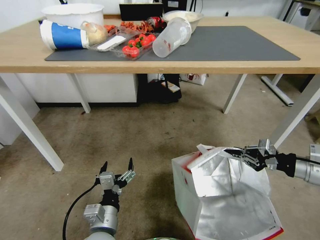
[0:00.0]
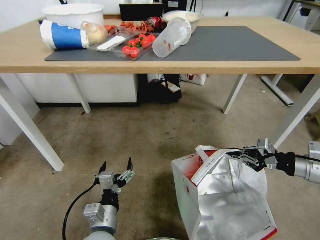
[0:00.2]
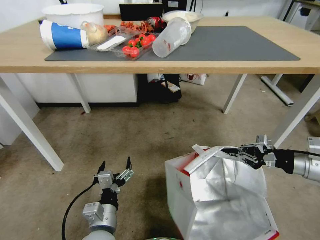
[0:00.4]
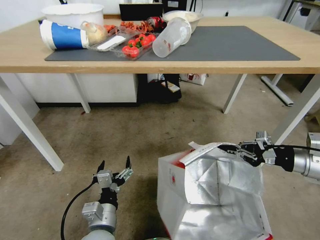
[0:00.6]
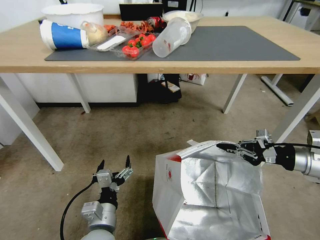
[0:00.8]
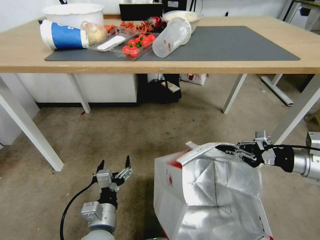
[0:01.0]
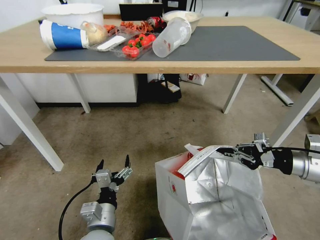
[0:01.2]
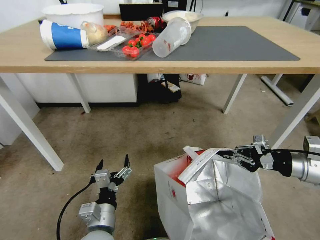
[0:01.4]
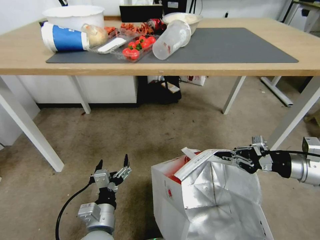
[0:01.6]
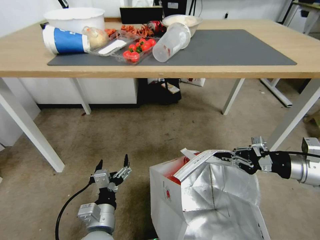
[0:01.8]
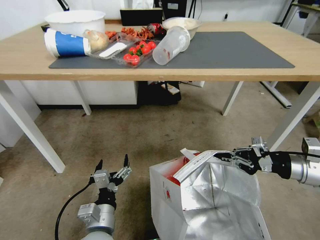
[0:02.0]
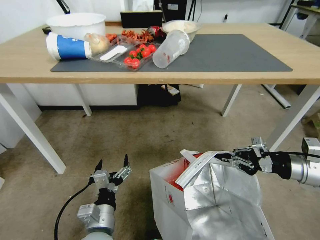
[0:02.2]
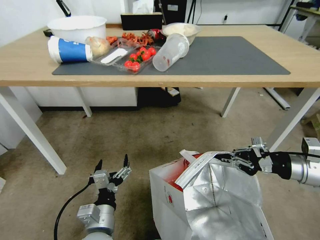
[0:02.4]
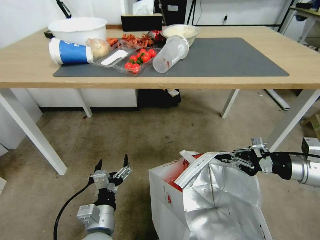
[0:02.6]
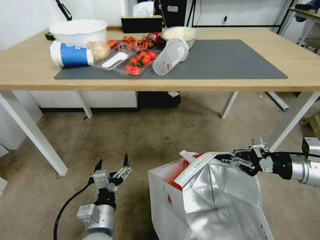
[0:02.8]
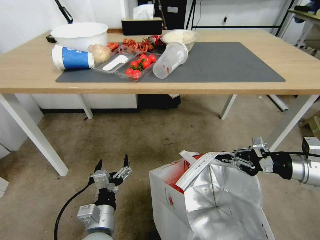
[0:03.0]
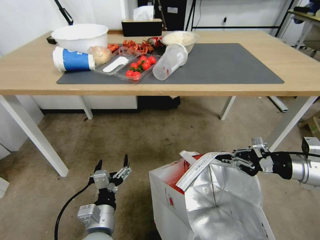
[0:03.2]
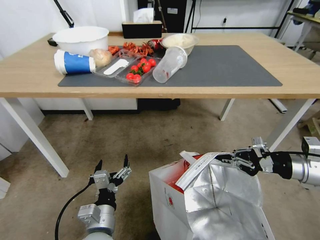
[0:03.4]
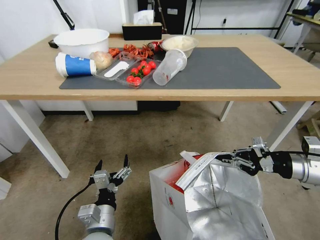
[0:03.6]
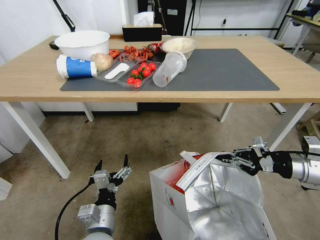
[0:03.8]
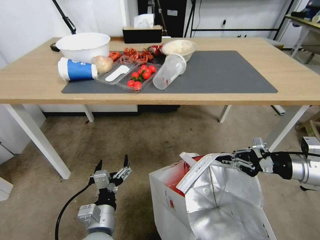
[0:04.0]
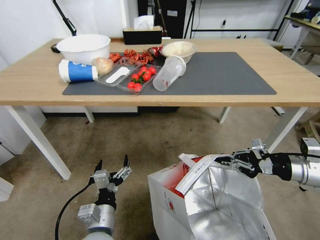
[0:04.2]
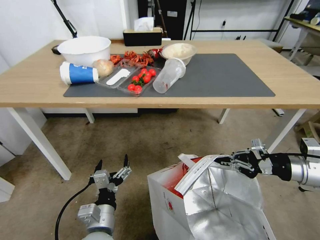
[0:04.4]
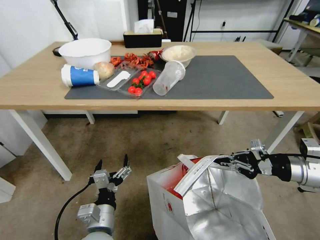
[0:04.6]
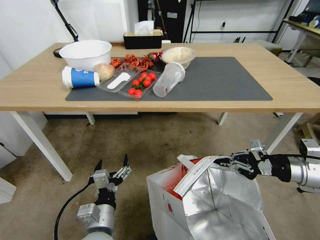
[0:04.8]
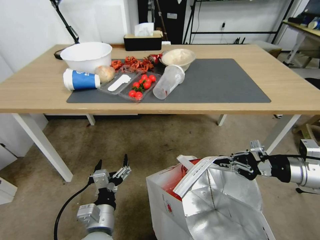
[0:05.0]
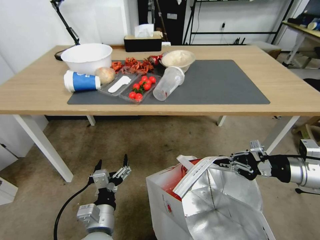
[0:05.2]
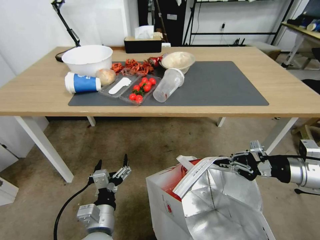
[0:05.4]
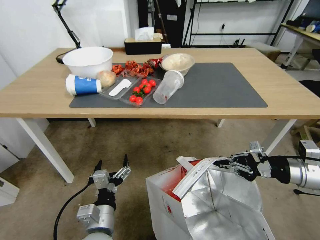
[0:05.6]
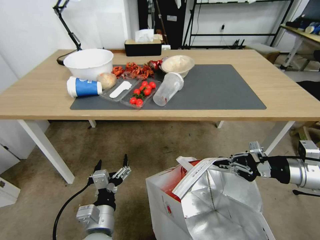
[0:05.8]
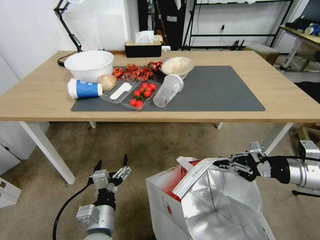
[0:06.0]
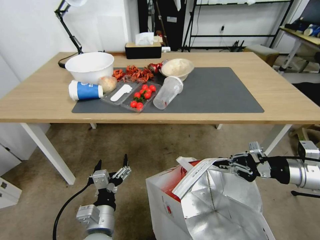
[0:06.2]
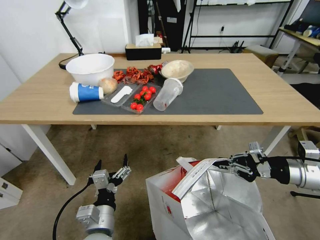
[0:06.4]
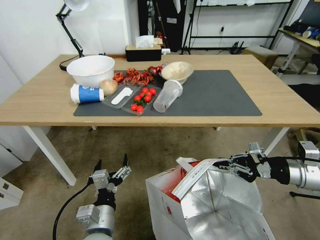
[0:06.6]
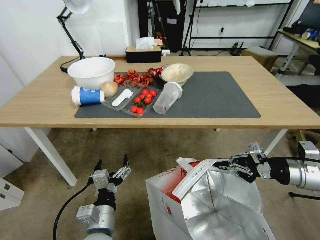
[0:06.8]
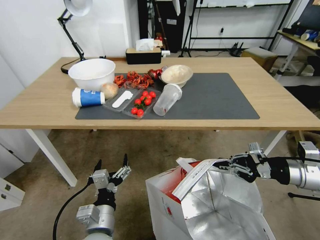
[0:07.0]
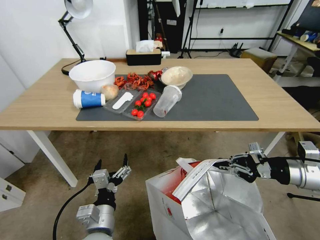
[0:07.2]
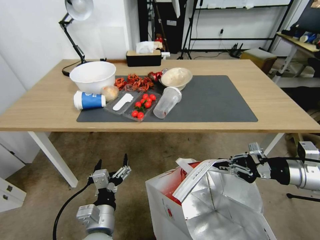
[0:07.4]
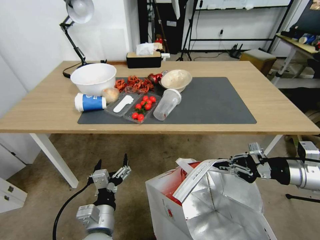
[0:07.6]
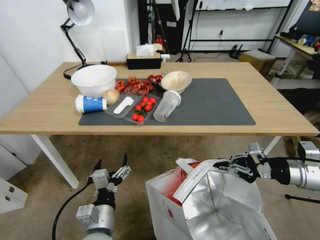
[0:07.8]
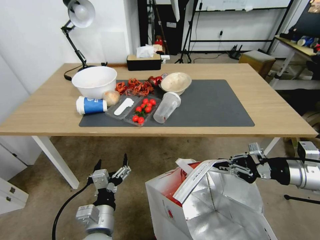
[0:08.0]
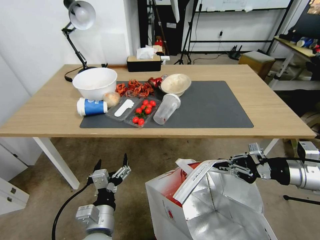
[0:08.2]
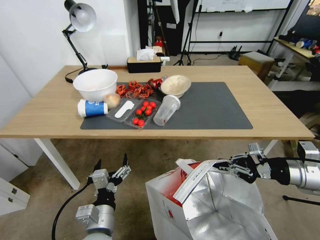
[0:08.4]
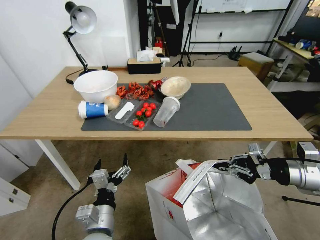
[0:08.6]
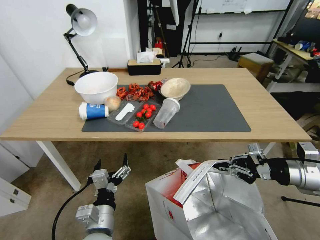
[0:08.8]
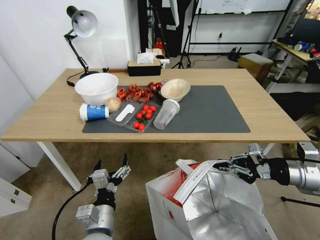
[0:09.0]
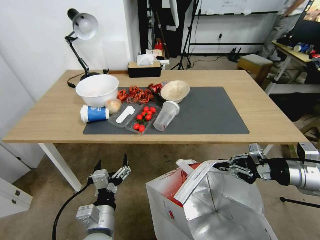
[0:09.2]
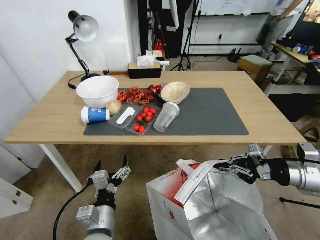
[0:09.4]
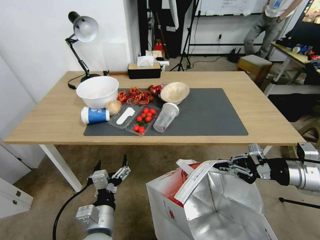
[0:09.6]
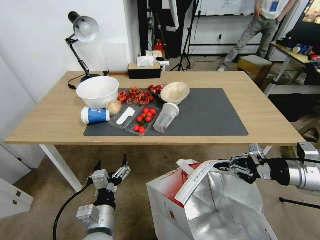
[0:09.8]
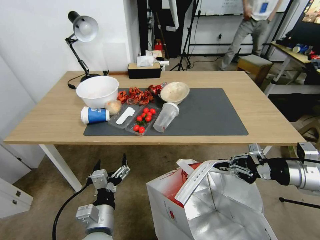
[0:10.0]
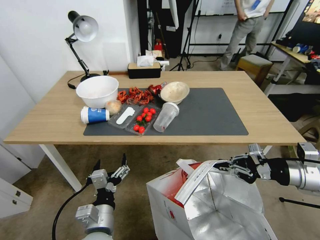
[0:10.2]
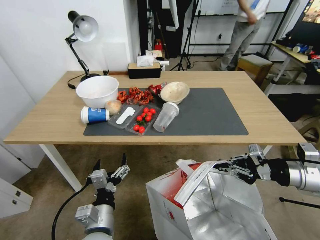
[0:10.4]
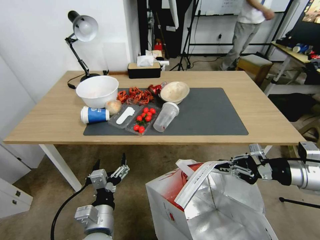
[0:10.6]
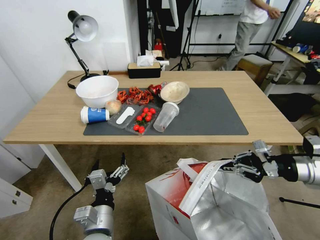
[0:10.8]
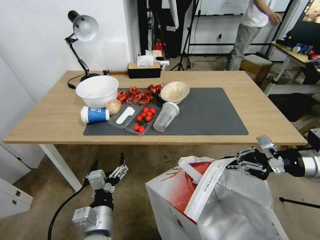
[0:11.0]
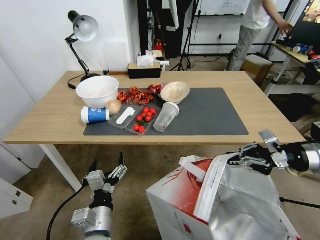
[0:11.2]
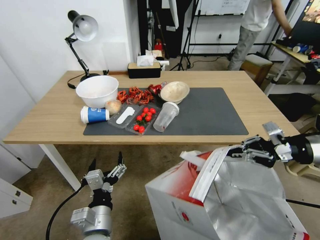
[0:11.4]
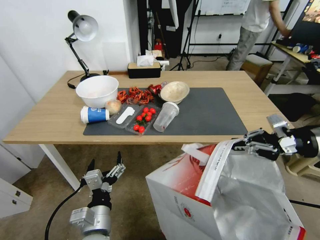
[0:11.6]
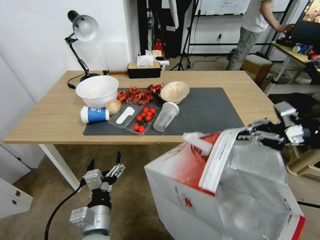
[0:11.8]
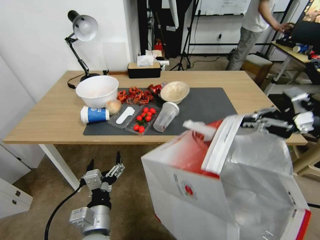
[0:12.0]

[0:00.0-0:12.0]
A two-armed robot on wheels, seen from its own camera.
Task of the whole recording: Pick up the food delivery bag from the floor and place it on the table.
0:10.4 to 0:12.0: The right gripper shifts roughly 15 cm upward and forward.

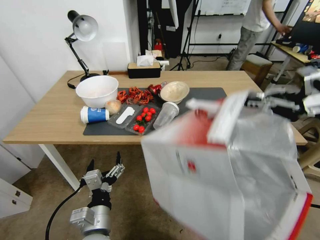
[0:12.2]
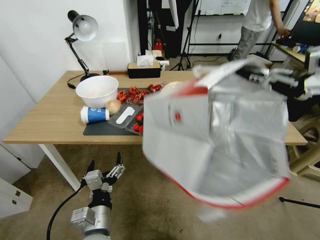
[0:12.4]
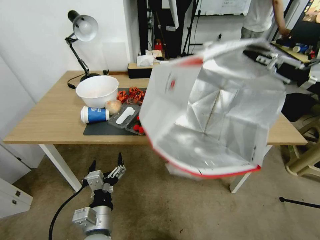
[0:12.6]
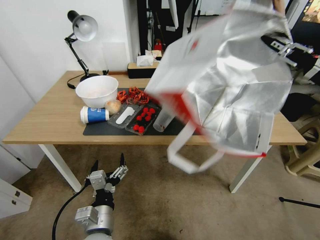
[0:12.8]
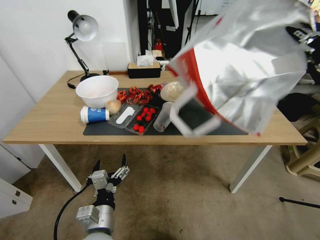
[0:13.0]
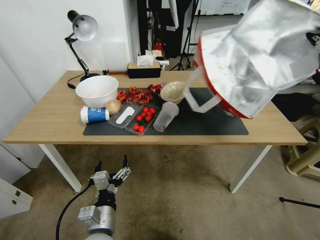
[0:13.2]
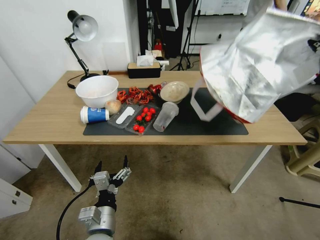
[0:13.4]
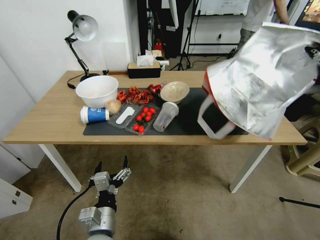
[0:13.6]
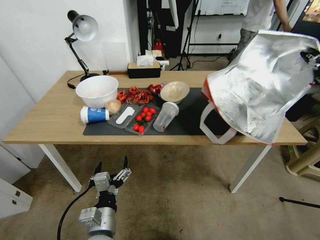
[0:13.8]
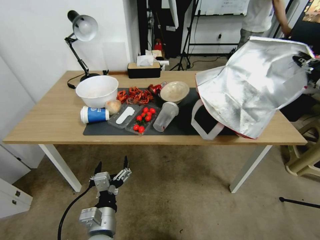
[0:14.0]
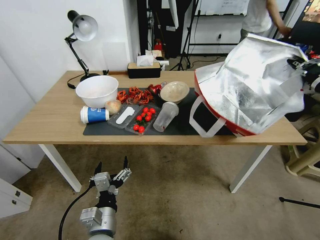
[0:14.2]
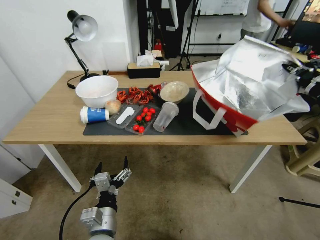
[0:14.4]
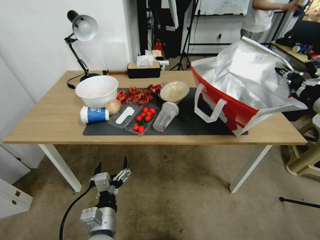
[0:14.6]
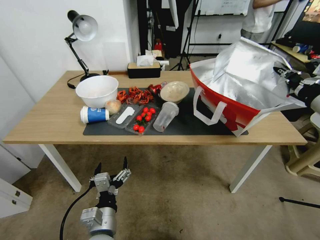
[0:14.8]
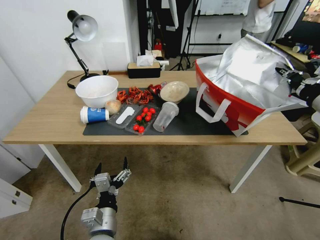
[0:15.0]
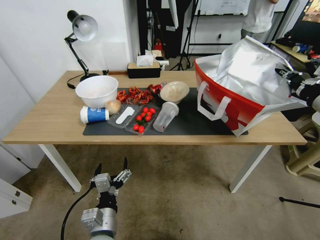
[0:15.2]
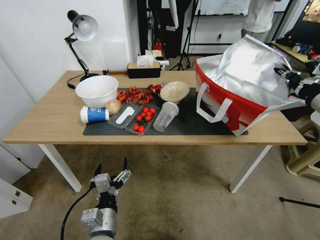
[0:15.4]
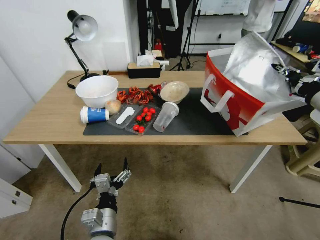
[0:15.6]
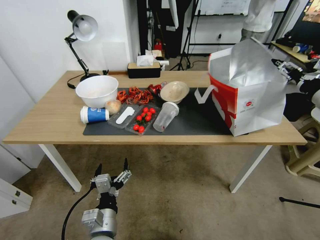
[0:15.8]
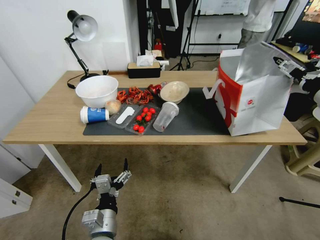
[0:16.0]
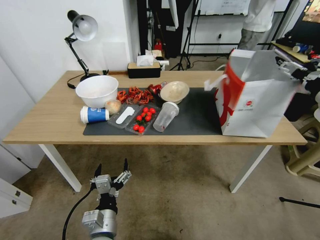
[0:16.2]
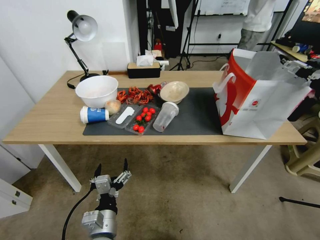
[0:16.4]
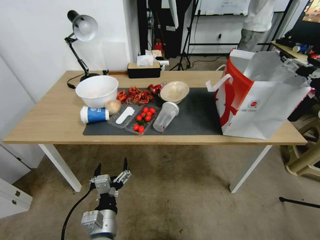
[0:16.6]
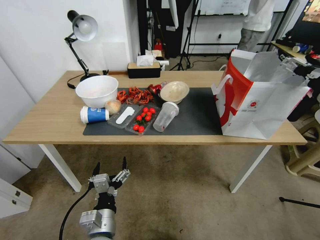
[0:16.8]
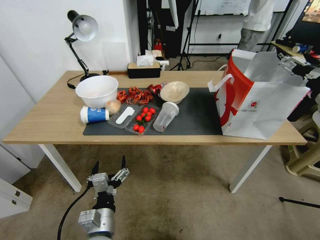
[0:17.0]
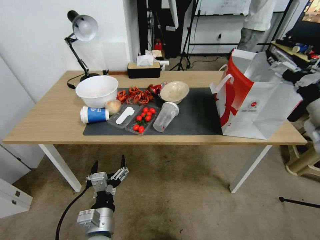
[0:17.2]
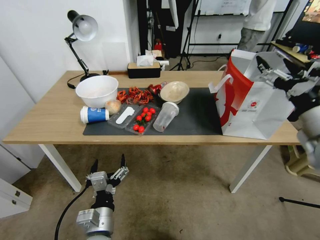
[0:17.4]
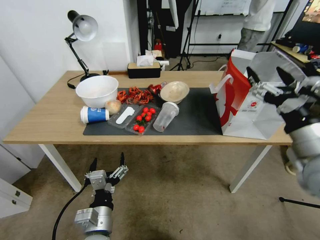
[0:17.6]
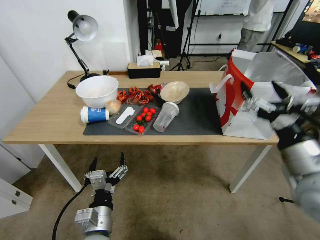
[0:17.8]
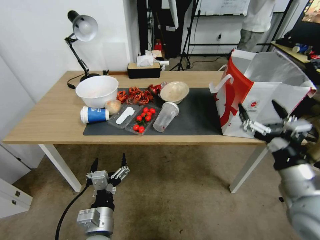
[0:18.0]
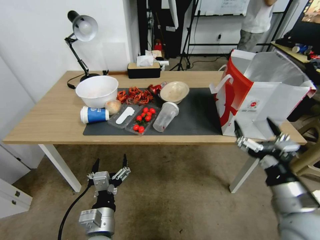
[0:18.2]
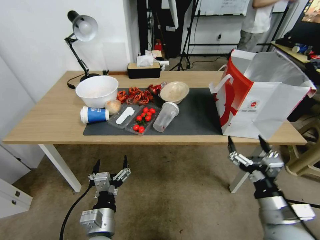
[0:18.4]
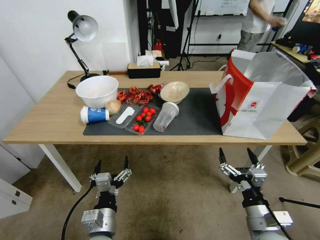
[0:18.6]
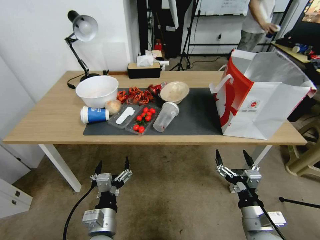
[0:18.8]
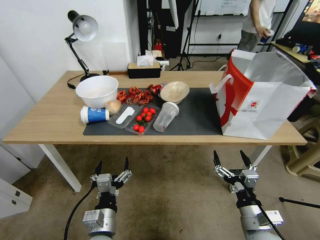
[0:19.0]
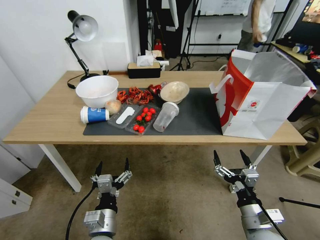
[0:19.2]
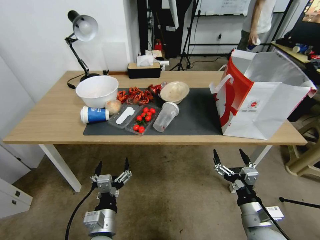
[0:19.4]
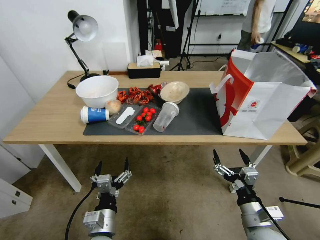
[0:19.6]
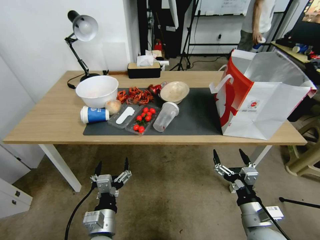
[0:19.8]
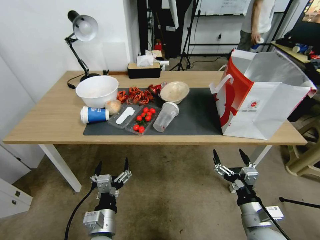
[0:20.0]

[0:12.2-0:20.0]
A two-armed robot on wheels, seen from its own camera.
Task of the whole recording: Pick up the food delivery bag from the floor and place it on the table.
0:13.8 to 0:15.4: The right gripper shifts by roughly 5 cm.
0:15.4 to 0:16.8: The right gripper opens its fingers.
0:16.8 to 0:18.4: The right gripper shifts roughly 30 cm downward, backward and to the left.
0:18.4 to 0:20.0: The right gripper travels downward by about 5 cm.

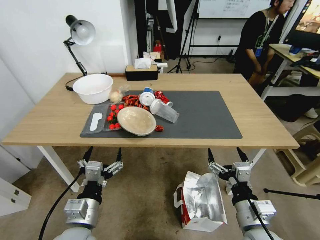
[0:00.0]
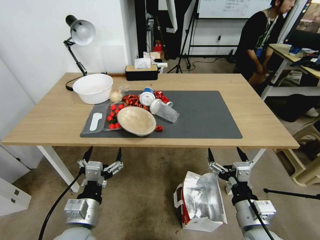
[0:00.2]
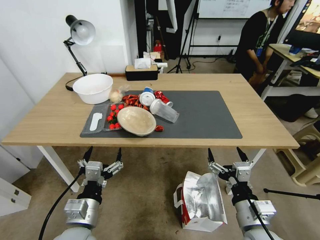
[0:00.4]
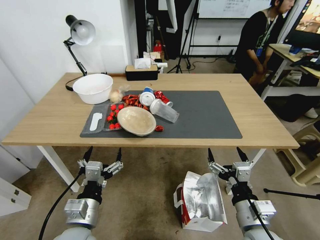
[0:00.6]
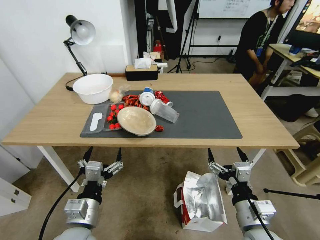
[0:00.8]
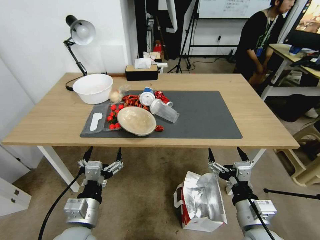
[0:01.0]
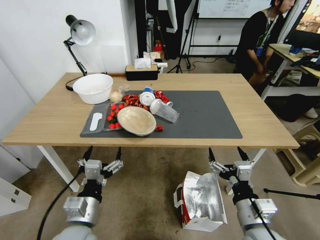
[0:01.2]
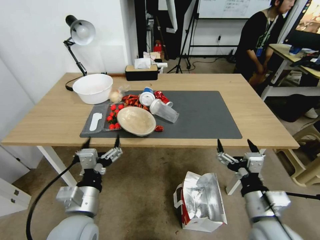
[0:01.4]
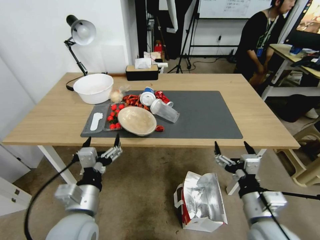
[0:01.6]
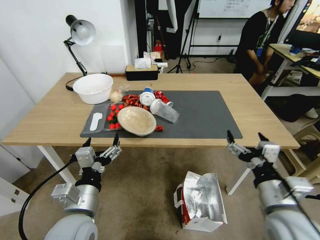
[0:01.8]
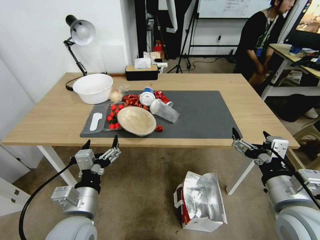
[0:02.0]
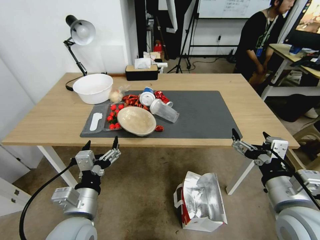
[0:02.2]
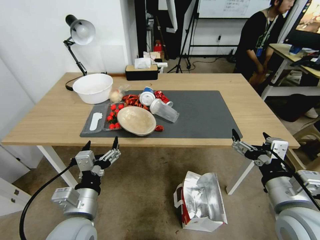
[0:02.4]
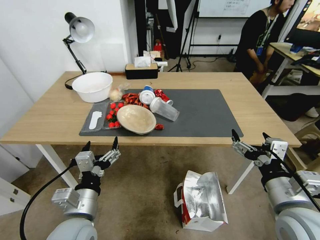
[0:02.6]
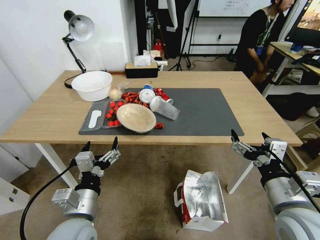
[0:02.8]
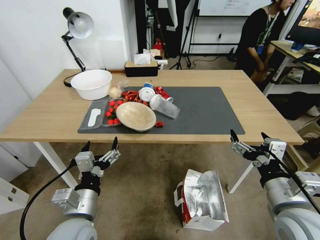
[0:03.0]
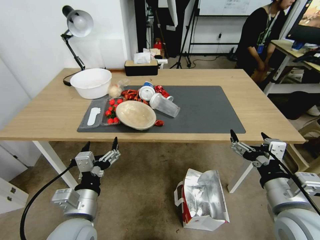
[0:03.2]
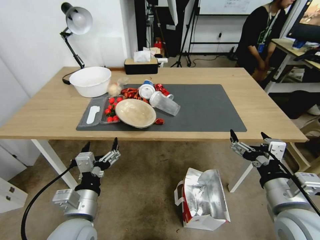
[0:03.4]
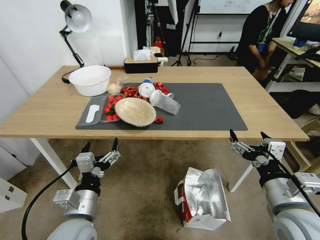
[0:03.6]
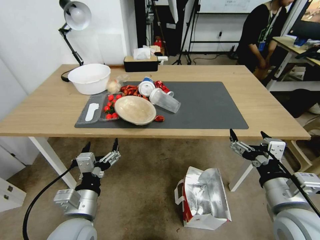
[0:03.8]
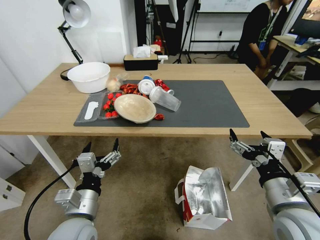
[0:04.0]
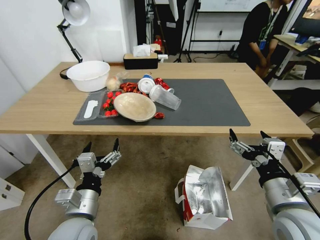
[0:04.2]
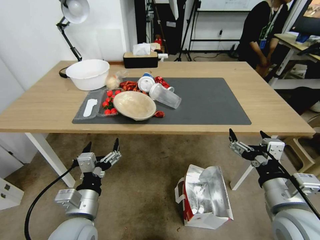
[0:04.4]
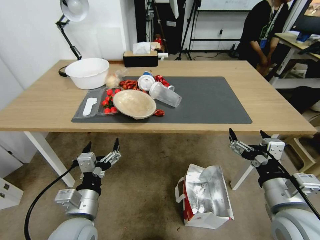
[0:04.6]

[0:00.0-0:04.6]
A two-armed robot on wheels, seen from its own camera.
Task of the whole recording: Pick up the food delivery bag from the floor and place it on the table.
0:01.6 to 0:03.0: The right gripper moves upward, approximately 10 cm.
